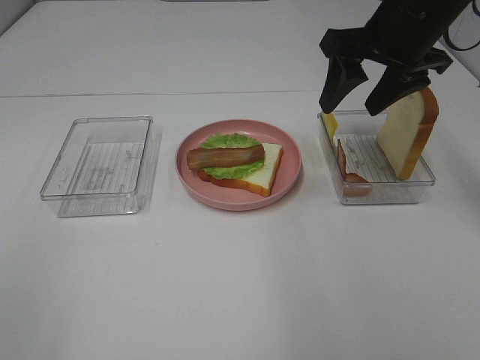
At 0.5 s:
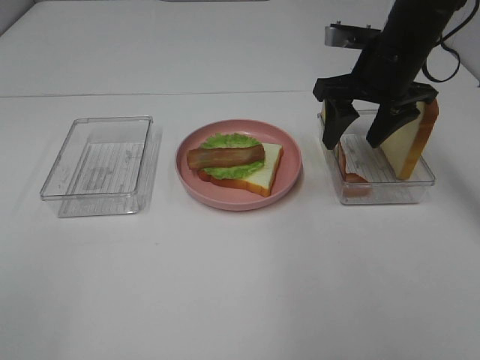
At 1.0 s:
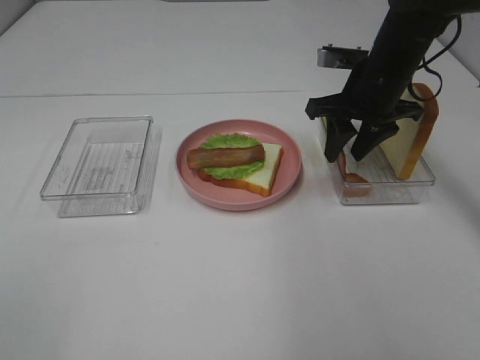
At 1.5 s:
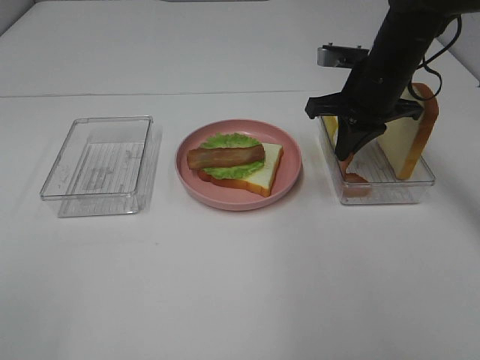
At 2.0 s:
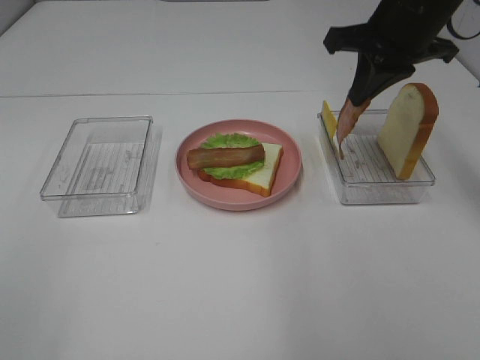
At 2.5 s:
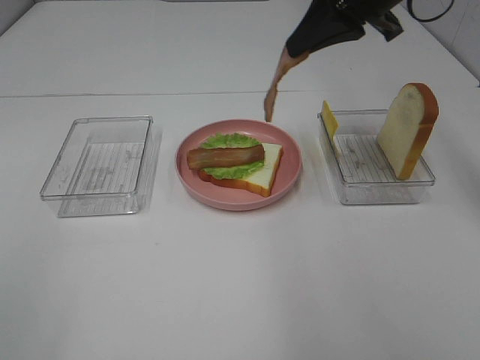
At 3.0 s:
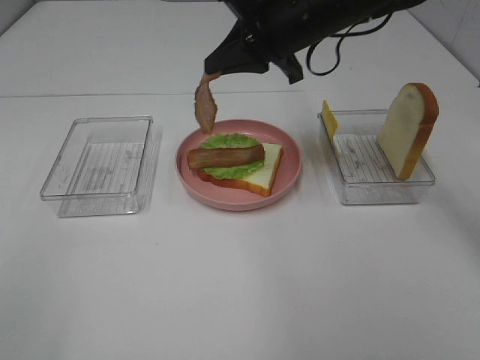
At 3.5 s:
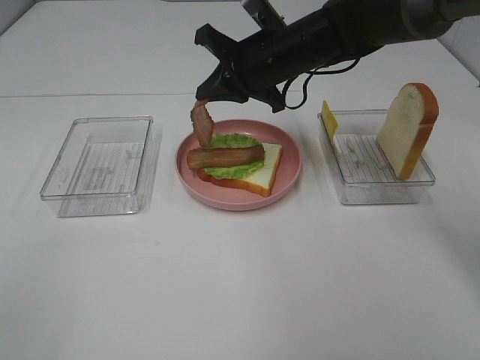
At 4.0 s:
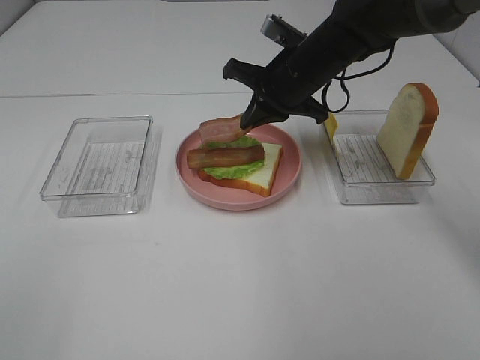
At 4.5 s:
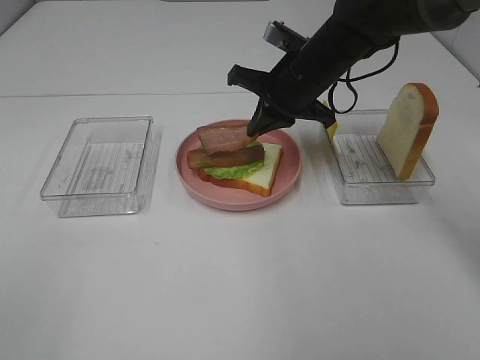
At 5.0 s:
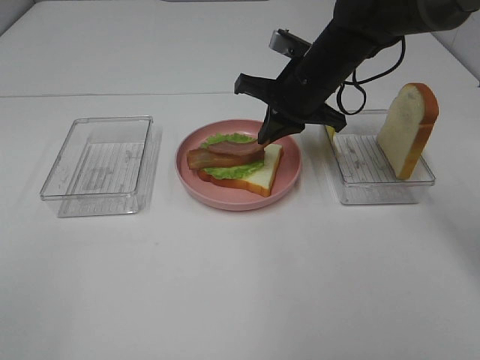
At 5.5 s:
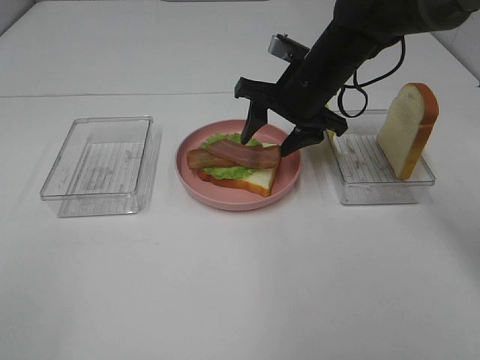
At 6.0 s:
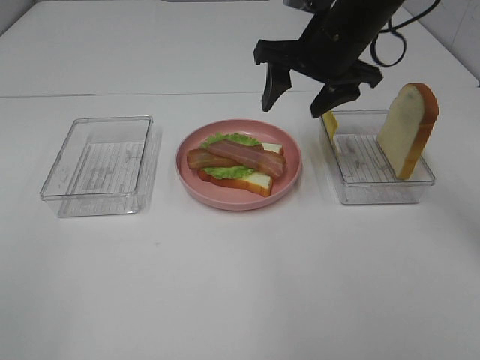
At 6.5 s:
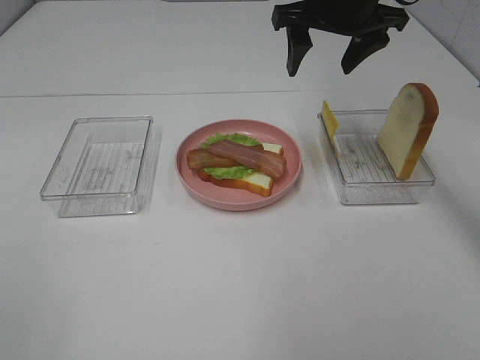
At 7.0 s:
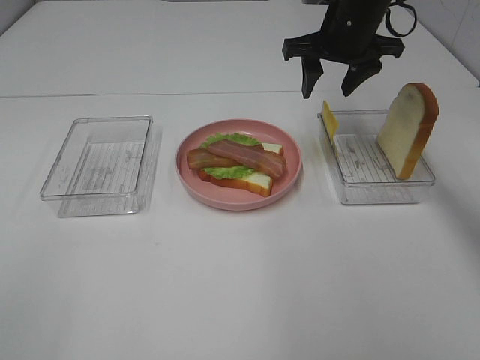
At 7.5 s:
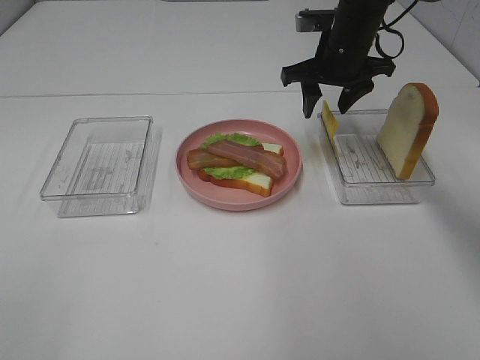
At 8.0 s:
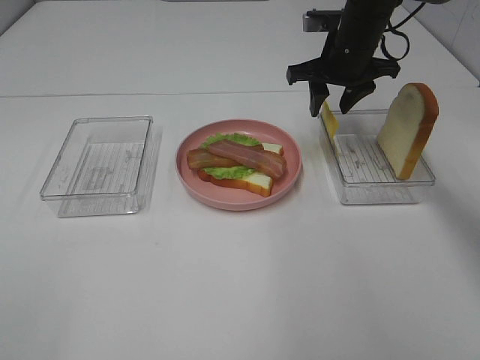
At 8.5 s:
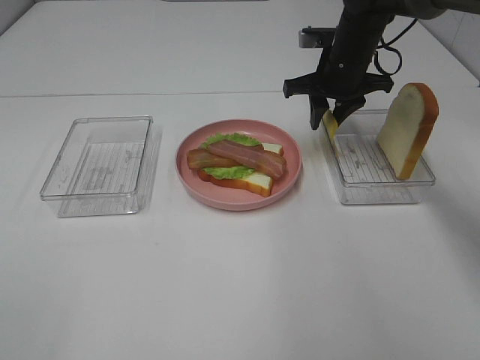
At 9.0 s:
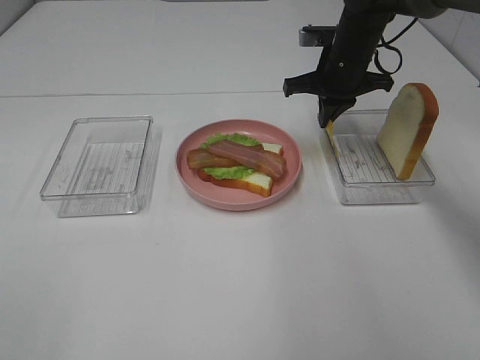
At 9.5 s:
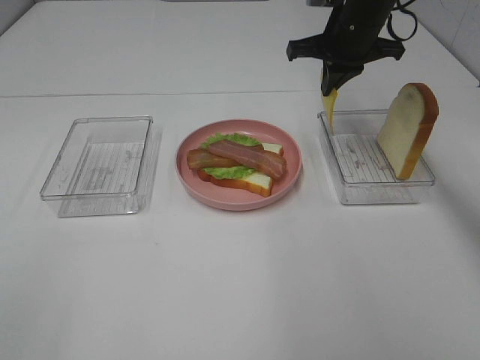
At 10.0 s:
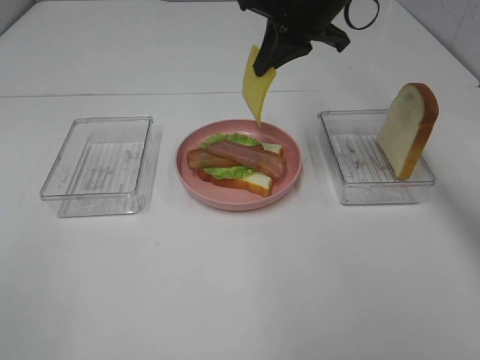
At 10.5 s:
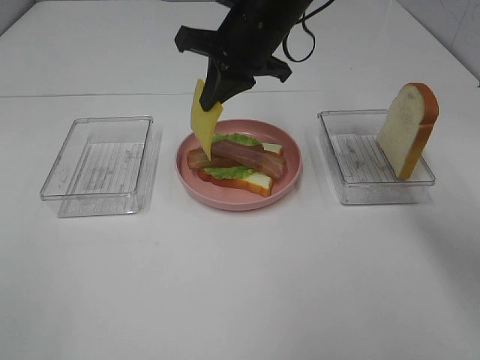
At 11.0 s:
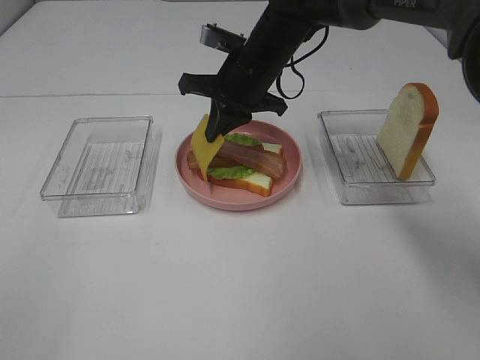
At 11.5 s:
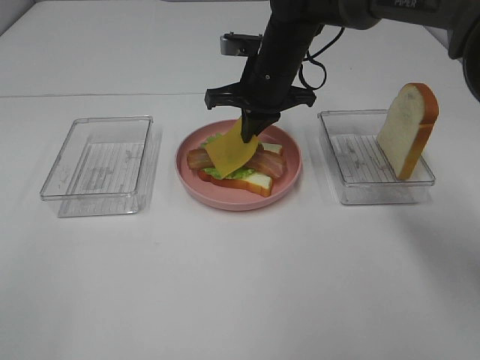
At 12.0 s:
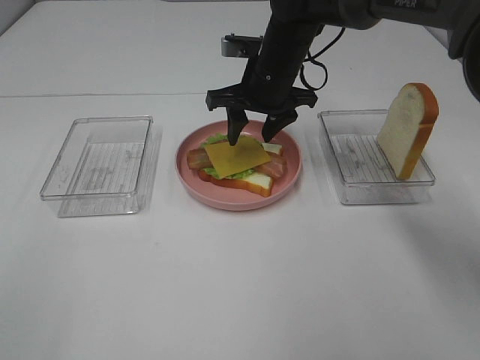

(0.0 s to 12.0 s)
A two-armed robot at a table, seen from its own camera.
Task of the whole recording: Make sandwiches.
Step, 1.5 s - 5.5 s: Right hand:place bacon on bacon.
Step, 6.0 s - 9.0 s: Right hand:grab the cheese slice.
0.0 s - 2.0 s: The right gripper travels downward and back again, about 10 cm each way, and closes its fingers.
2.0 s - 4.0 s: The right gripper shifts some 15 cm downward and to the left.
4.0 s - 6.0 s: The right gripper heads upward, covering some 5 cm, and opens.
6.0 s - 8.0 s: The right gripper travels forward and downward by roughly 10 cm.
8.0 s - 10.0 s: The right gripper is displaced upward and to the left by approximately 10 cm, and closes its fingers.
10.0 s - 12.0 s: The right gripper heads downward, covering about 10 cm, and opens.

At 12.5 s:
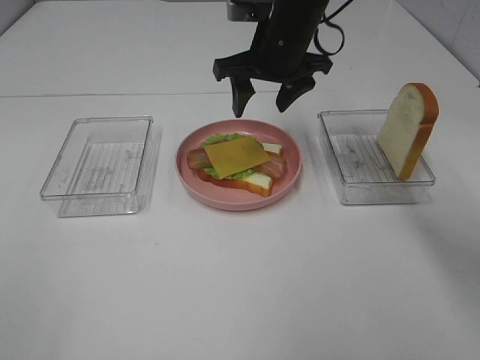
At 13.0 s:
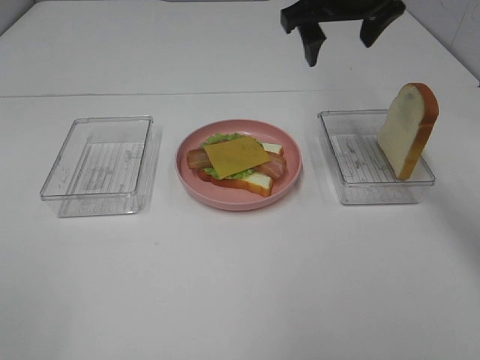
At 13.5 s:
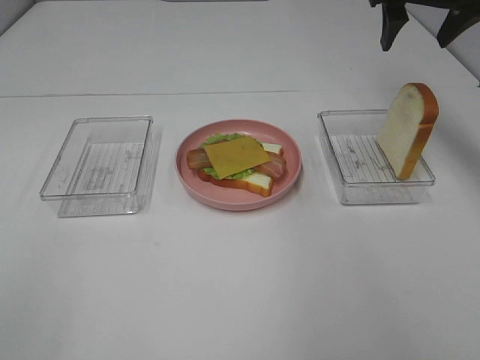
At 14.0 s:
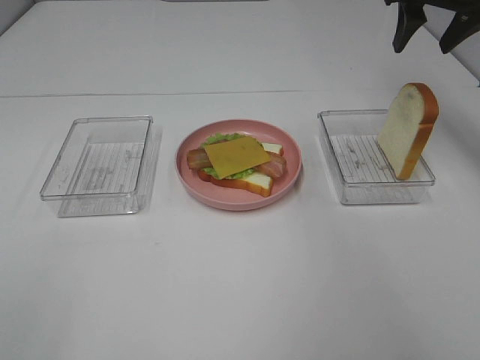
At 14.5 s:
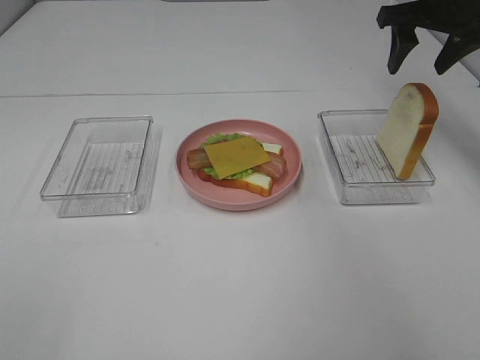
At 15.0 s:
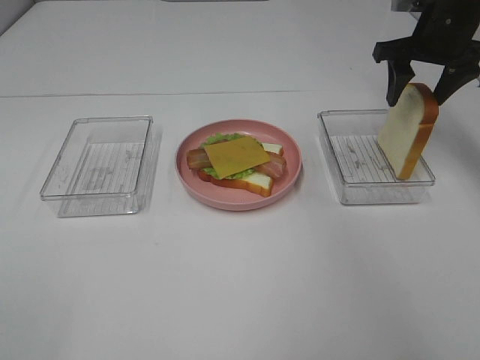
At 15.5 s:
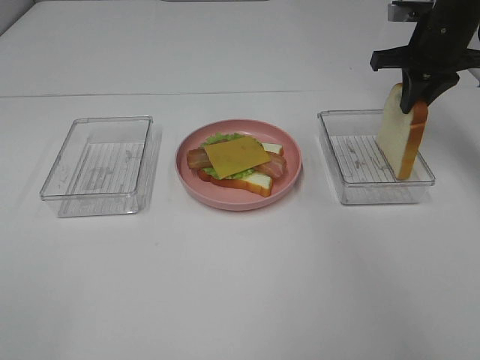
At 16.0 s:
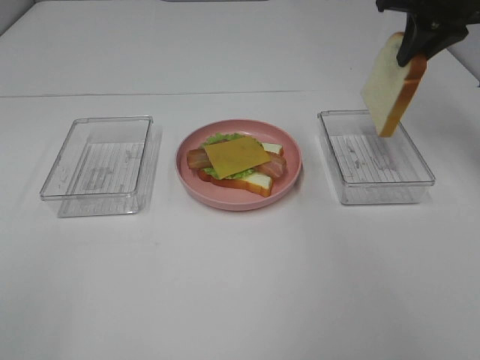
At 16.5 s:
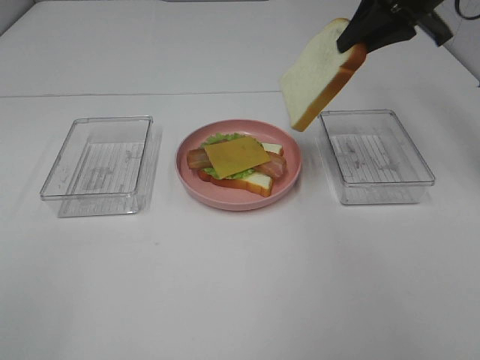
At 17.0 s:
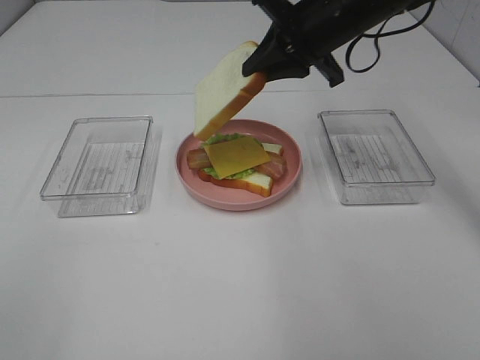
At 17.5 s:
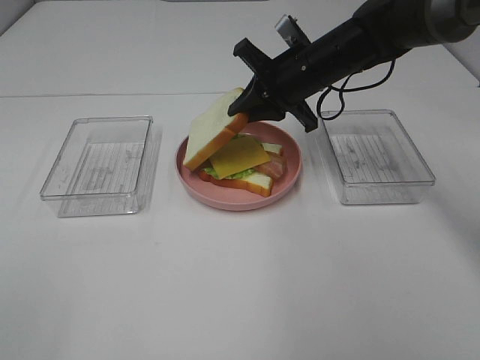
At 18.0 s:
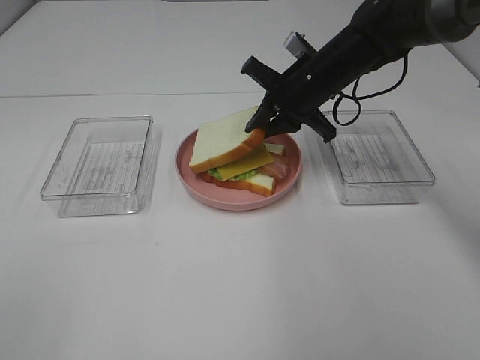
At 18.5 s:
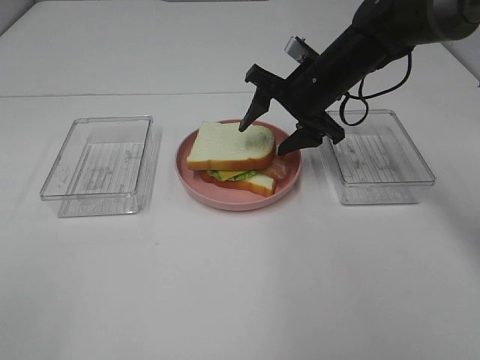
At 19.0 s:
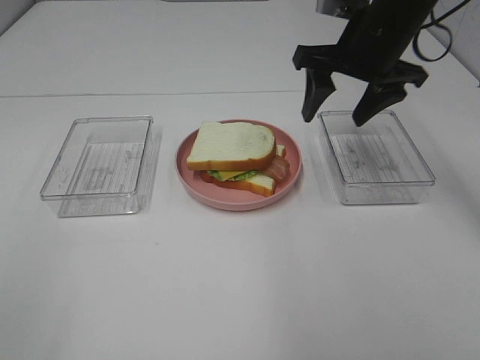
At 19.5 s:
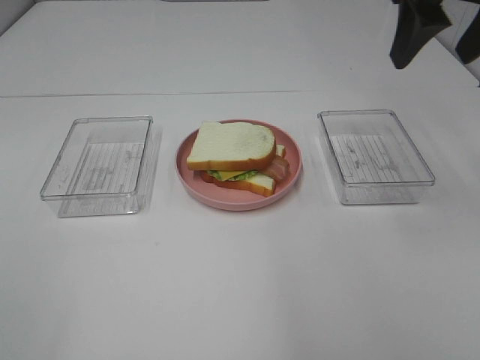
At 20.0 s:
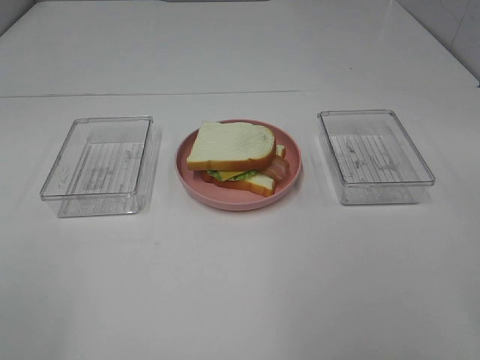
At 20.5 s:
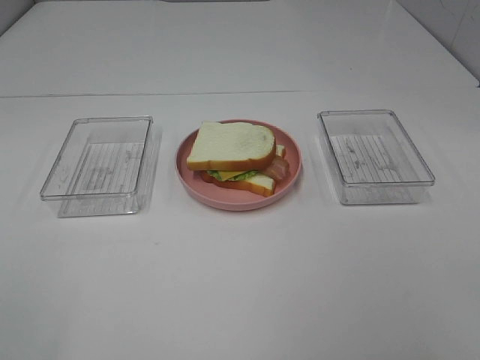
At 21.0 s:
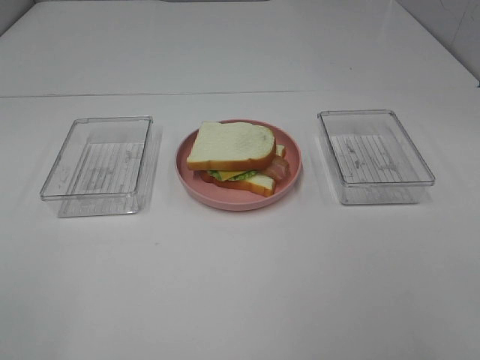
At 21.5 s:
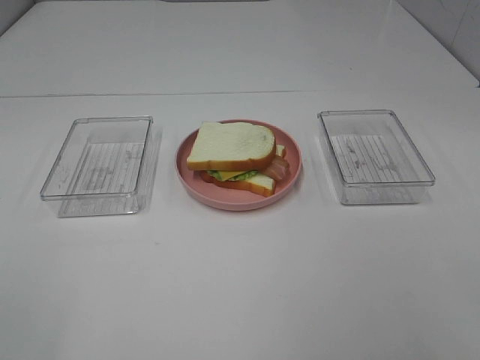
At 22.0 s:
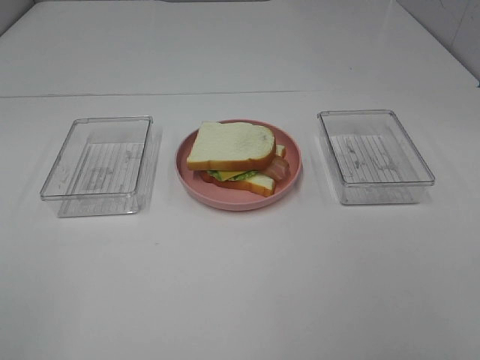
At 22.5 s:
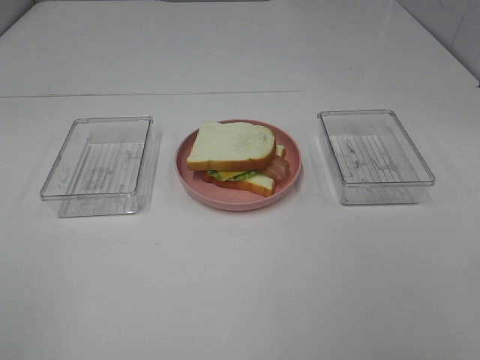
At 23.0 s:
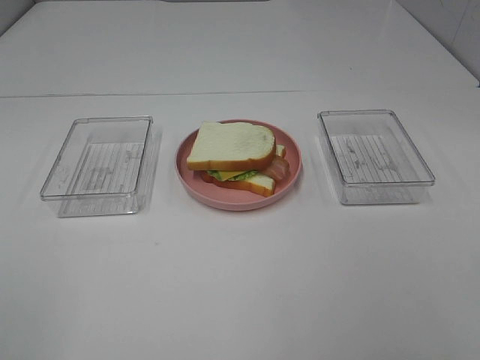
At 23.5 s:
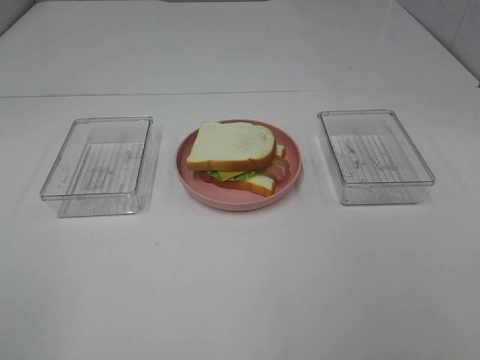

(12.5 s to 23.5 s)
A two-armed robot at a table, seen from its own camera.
Task of the whole recording: Make sandwiches.
Step, 12.5 s - 15.5 s: Right hand:grab the bread slice.
Step, 16.0 s - 19.0 s: Right hand:place the bread slice on the cheese slice.
12.5 s - 14.5 s: The right gripper travels to the right by about 20 cm.
14.5 s - 16.0 s: The right gripper moves approximately 5 cm downward and comes back, and closes.
16.0 s - 18.0 s: The right gripper heads downward and to the left, covering about 20 cm.
18.0 s - 20.0 s: The right gripper moves backward, upward and to the right, some 40 cm, and opens up.

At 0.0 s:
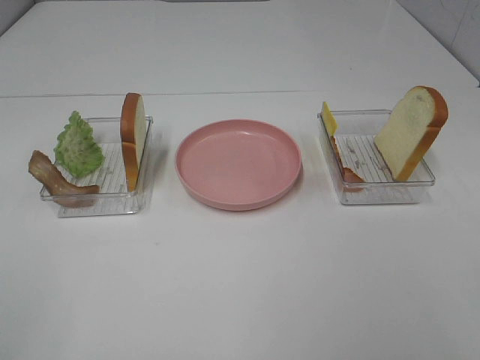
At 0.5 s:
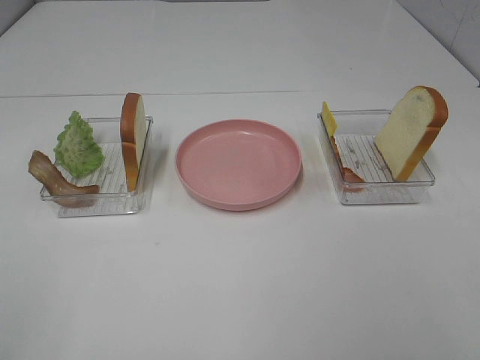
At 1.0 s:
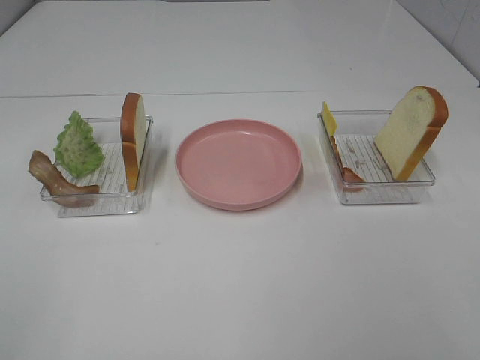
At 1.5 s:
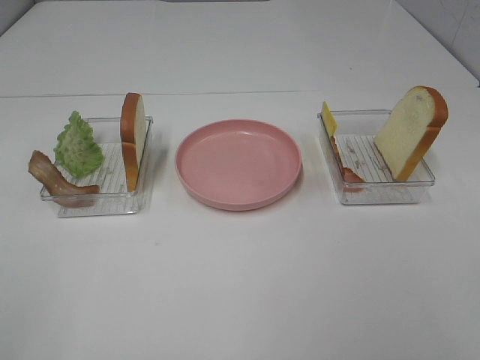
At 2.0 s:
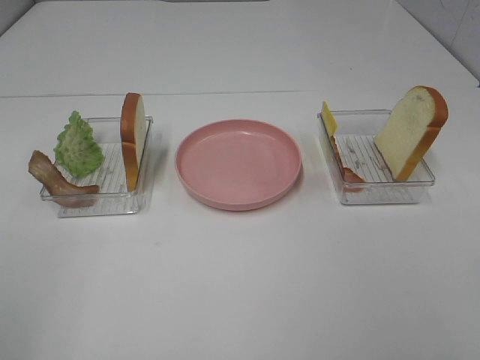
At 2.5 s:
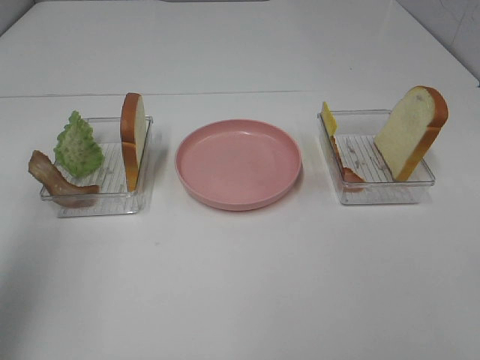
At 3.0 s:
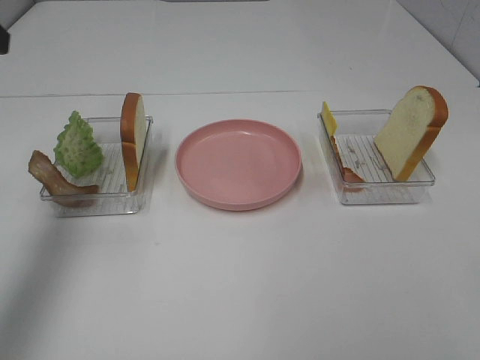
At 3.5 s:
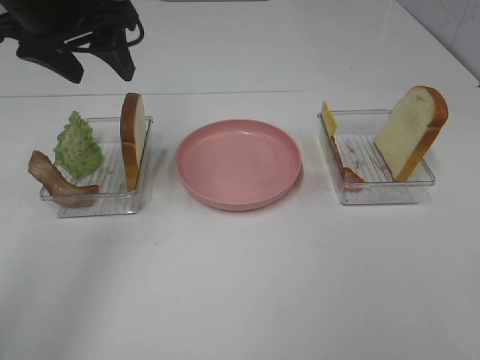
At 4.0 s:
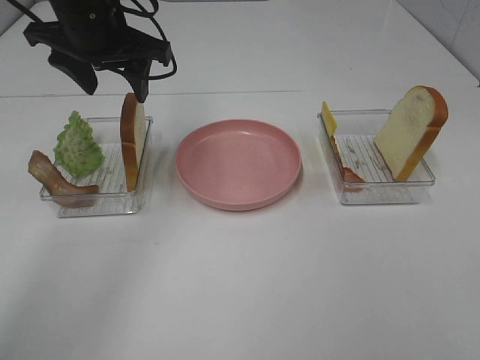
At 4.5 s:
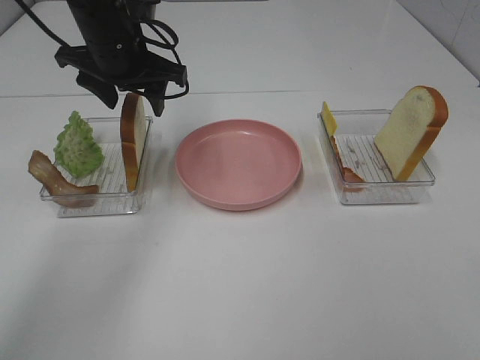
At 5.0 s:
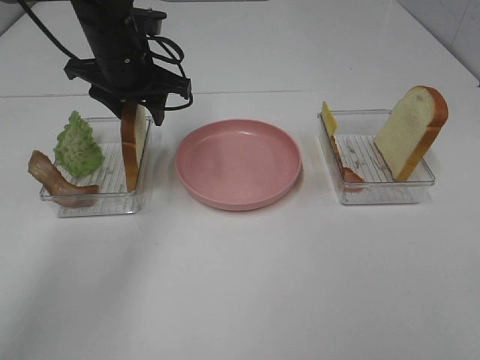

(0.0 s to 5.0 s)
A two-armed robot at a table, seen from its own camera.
Task of the whole recording: Make sandwiches.
0.0 s - 2.5 s: The left gripper travels forward and upward by some 20 cm.
2.5 s - 5.0 s: The left gripper heads forward, to the right and downward, covering some 35 cm.
